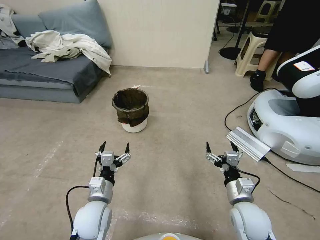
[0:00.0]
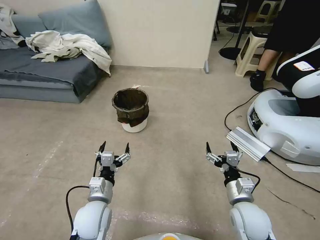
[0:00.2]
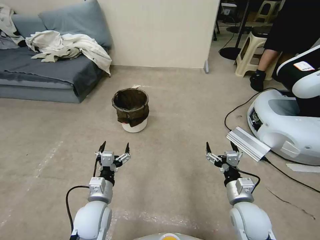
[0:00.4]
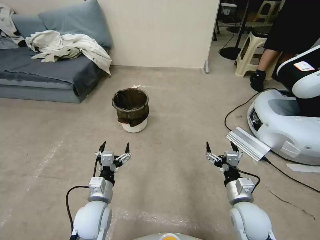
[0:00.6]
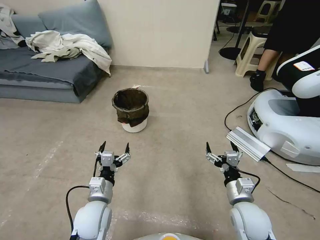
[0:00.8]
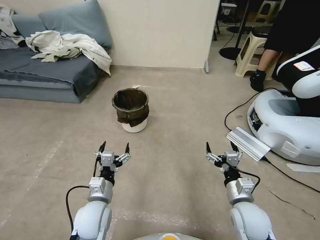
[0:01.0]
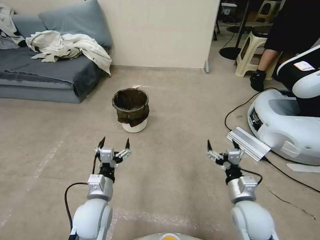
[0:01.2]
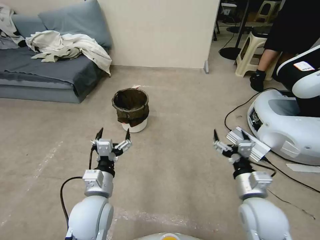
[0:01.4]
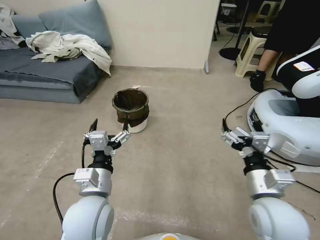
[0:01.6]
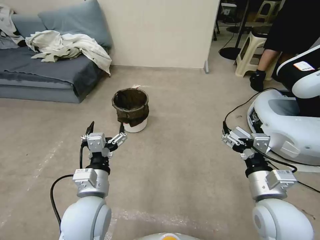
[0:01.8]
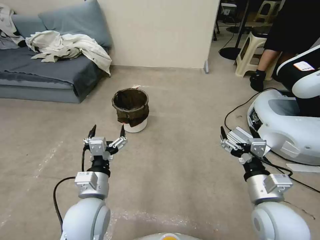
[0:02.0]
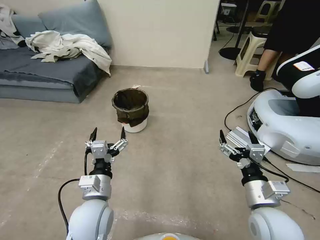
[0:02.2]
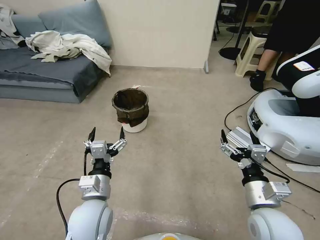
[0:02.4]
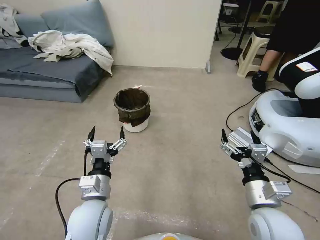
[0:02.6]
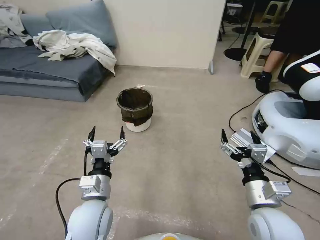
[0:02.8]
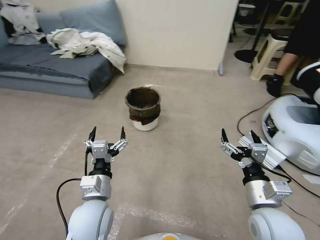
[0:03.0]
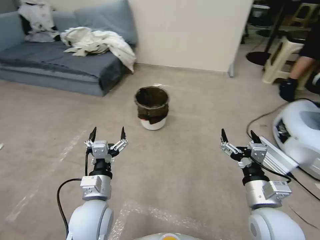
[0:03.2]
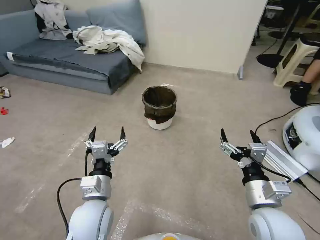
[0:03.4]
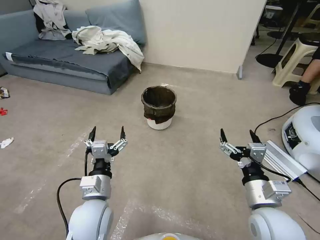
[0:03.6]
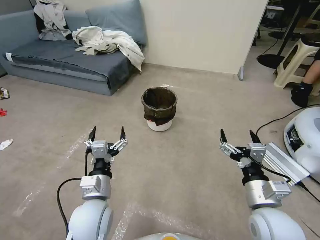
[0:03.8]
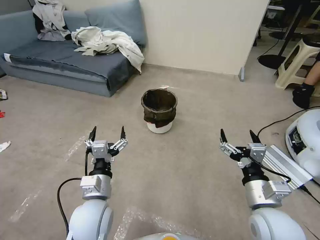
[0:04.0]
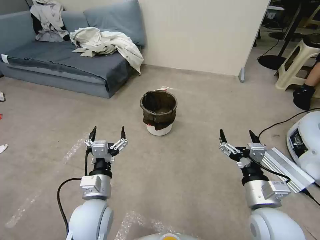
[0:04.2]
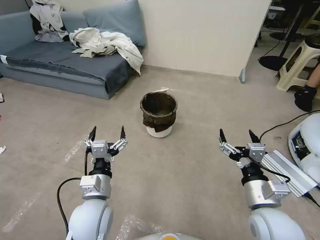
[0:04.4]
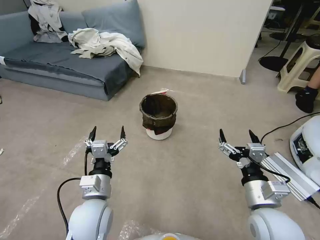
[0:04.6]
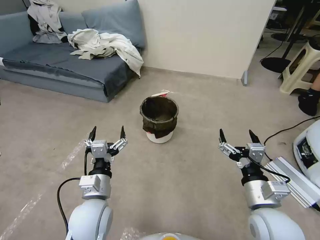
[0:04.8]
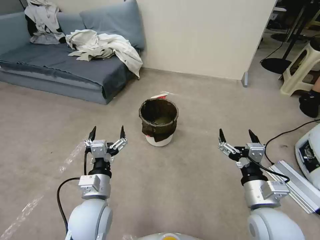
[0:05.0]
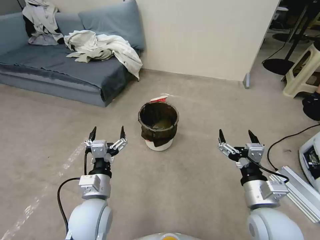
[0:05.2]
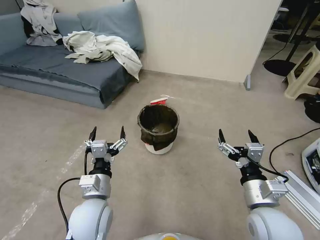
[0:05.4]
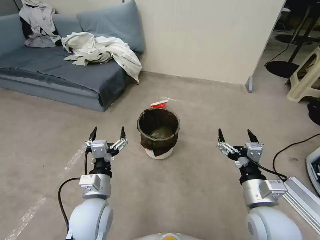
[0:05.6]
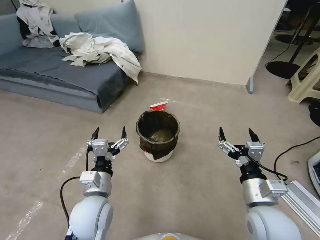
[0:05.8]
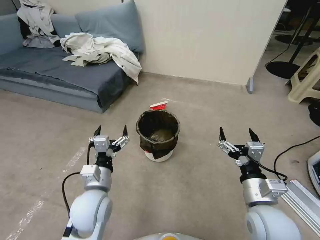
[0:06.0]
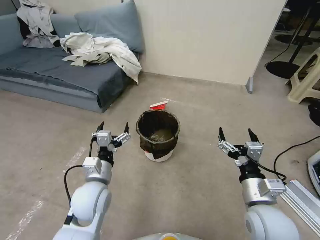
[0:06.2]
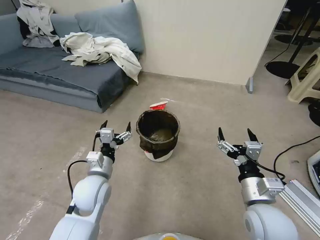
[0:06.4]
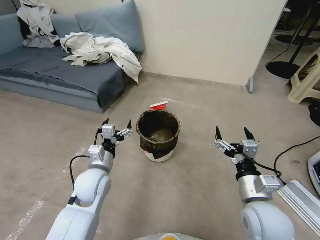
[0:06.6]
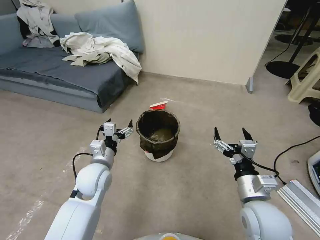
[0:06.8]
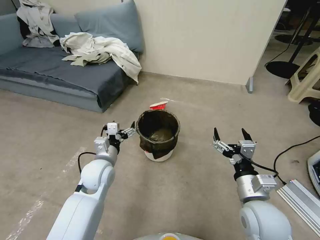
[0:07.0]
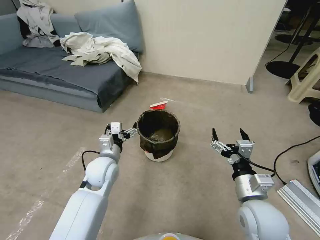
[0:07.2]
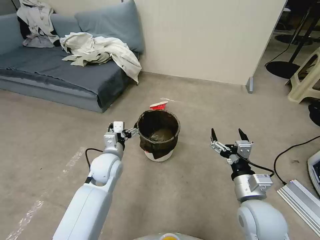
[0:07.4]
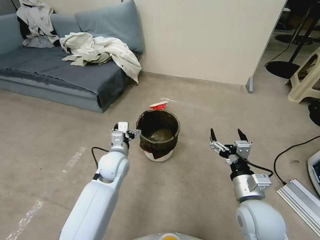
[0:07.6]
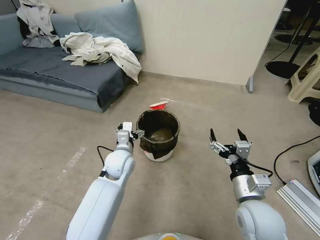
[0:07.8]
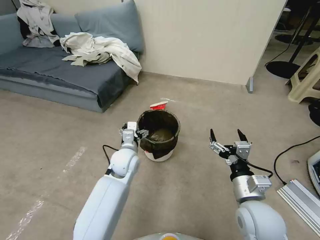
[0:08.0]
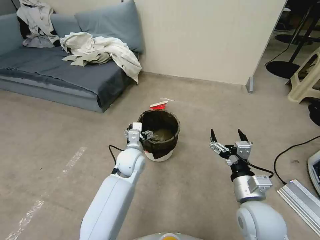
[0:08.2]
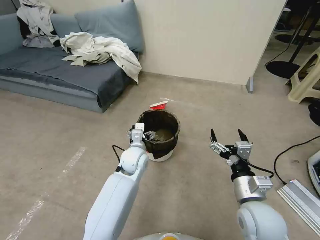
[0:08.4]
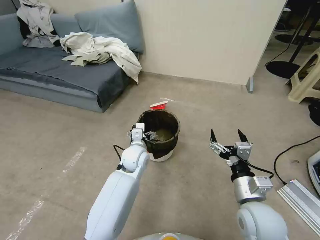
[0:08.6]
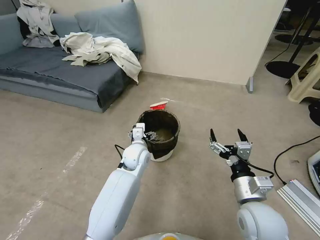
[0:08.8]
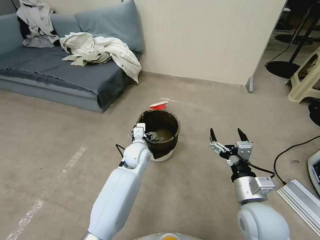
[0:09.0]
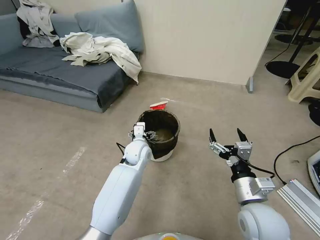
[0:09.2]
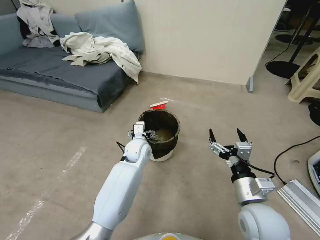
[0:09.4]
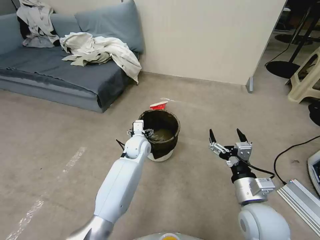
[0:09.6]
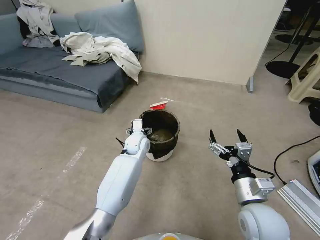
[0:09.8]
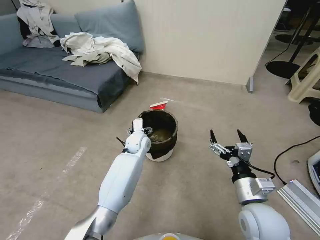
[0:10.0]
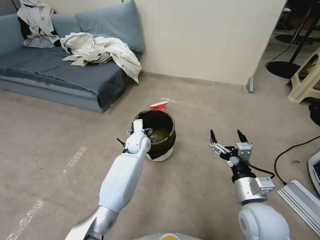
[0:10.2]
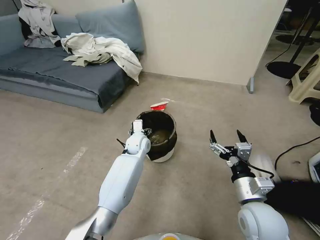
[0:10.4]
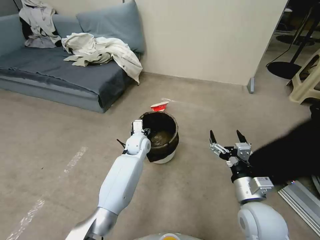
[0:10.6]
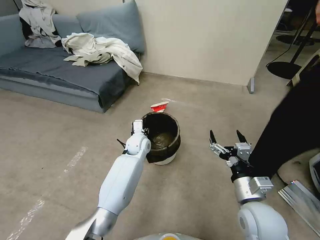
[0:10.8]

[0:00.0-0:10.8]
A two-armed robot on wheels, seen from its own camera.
Task of the whole recording: Pick up the trash can from the floor.
0:01.6 to 0:03.0: The left gripper heads downward, covering approximately 5 cm.
0:06.2 to 0:07.8: The left gripper heads forward, covering roughly 10 cm.
0:07.8 to 0:09.2: The left gripper goes approximately 10 cm to the right and forward.
0:09.2 to 0:10.8: The left gripper heads forward, covering roughly 5 cm, and closes.

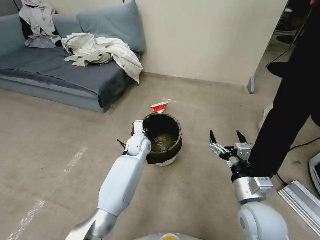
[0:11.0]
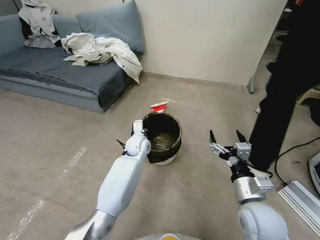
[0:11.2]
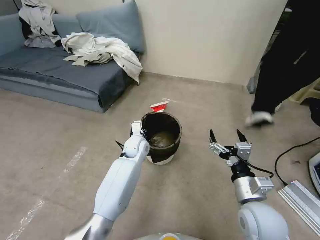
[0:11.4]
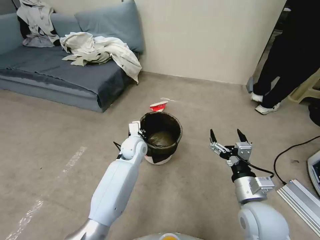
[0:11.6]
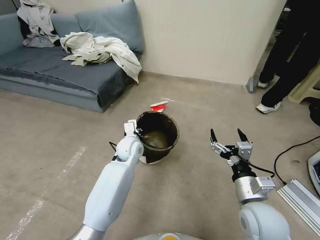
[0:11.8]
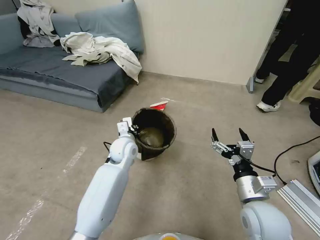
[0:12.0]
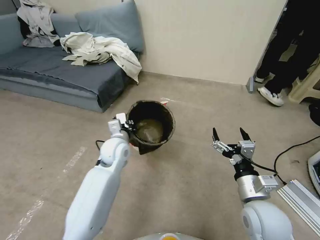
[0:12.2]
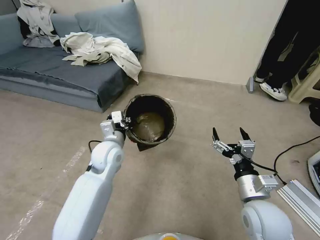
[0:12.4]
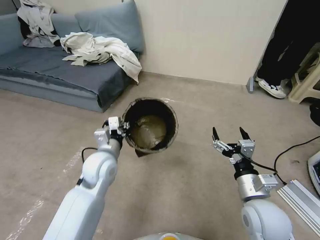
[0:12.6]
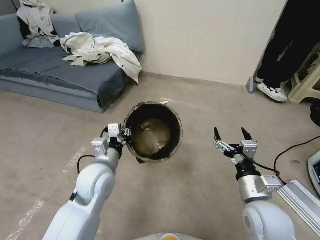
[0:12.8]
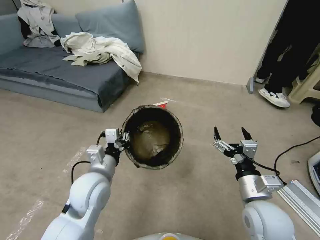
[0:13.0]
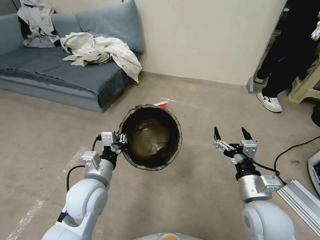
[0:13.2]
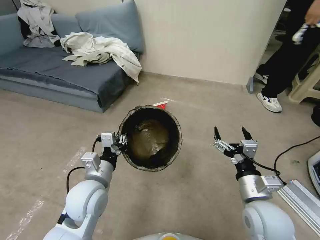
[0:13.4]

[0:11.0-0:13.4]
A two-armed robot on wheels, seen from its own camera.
Task of the whole recording: Pick up the trash can from the floor.
0:11.0 to 0:12.2: The left gripper is displaced upward, backward and to the left by some 10 cm.
0:12.2 to 0:13.4: The left gripper goes about 15 cm backward.

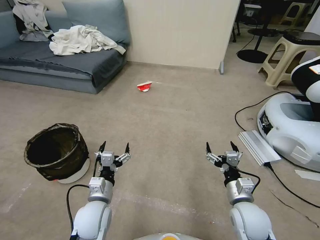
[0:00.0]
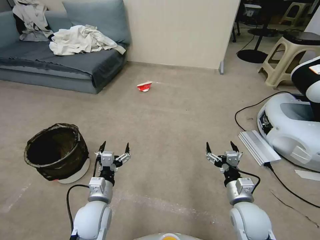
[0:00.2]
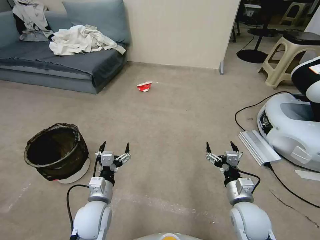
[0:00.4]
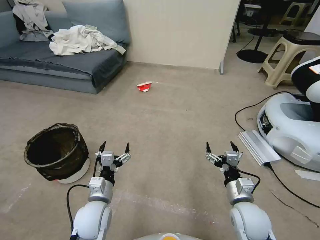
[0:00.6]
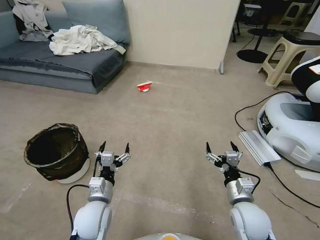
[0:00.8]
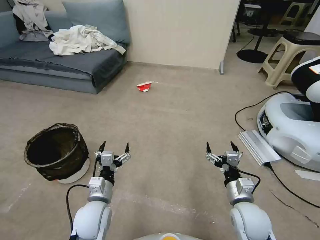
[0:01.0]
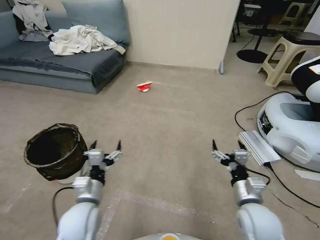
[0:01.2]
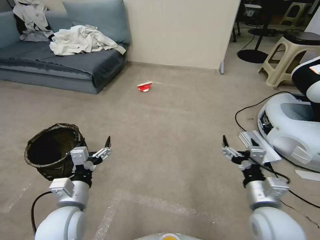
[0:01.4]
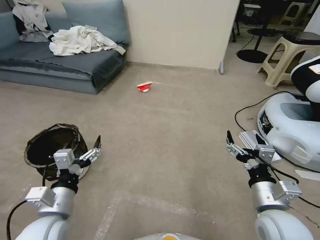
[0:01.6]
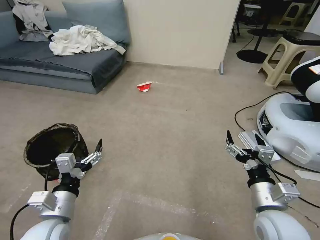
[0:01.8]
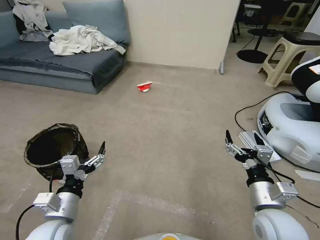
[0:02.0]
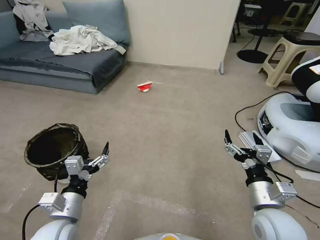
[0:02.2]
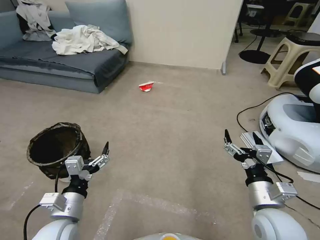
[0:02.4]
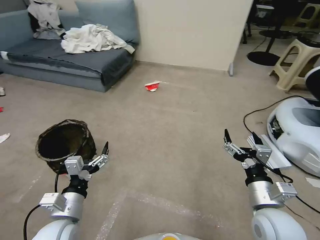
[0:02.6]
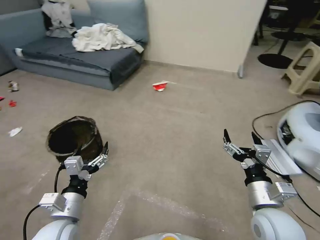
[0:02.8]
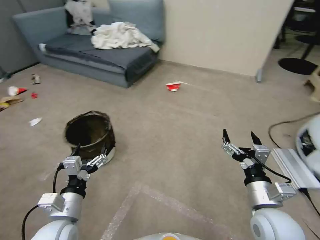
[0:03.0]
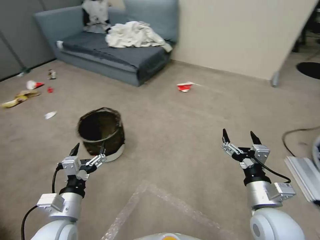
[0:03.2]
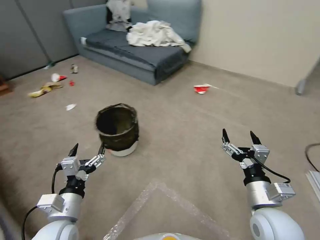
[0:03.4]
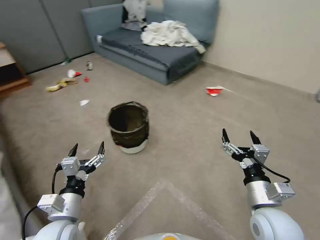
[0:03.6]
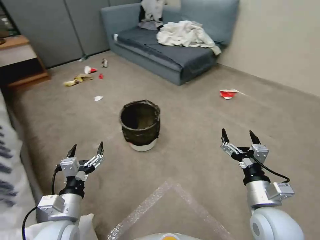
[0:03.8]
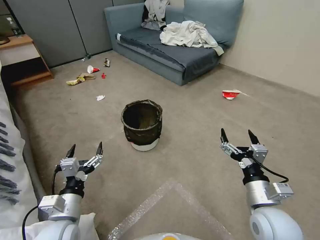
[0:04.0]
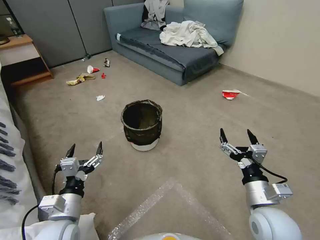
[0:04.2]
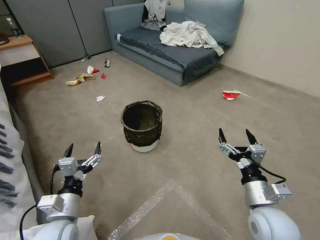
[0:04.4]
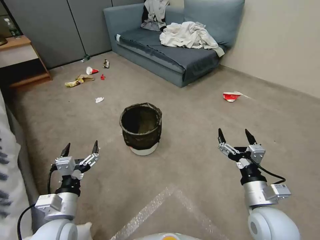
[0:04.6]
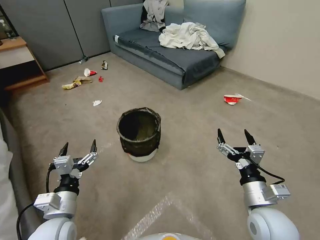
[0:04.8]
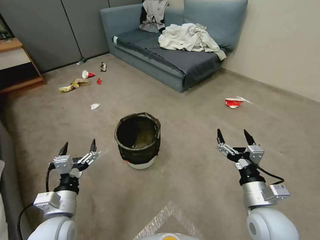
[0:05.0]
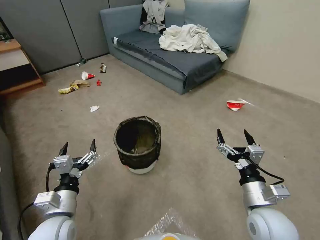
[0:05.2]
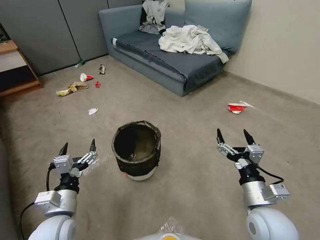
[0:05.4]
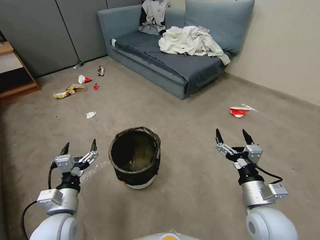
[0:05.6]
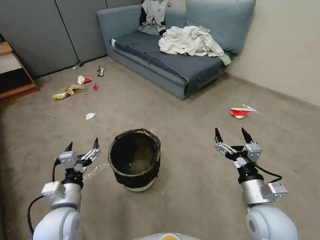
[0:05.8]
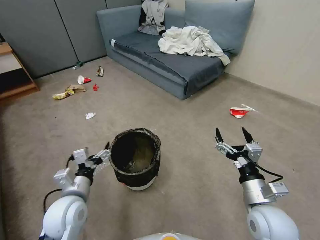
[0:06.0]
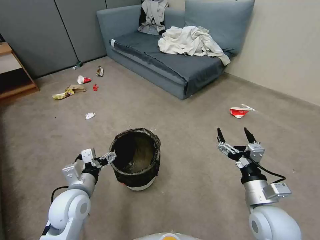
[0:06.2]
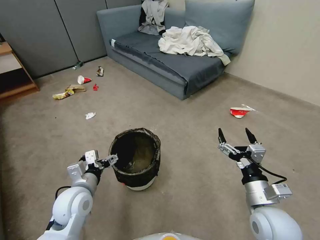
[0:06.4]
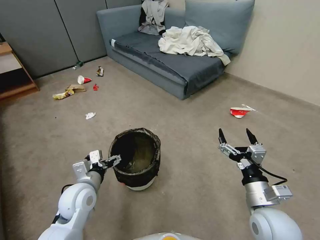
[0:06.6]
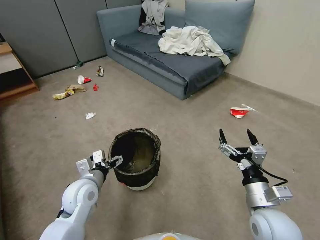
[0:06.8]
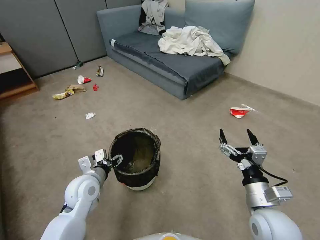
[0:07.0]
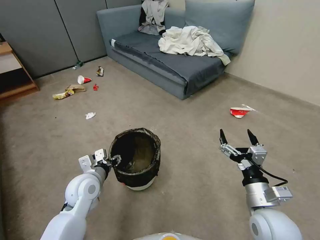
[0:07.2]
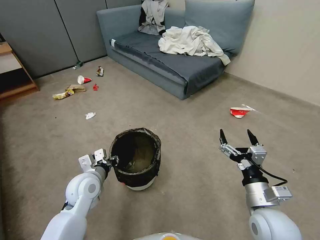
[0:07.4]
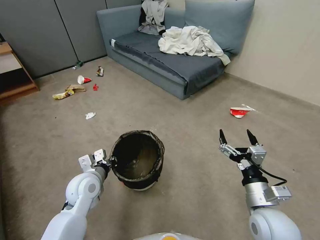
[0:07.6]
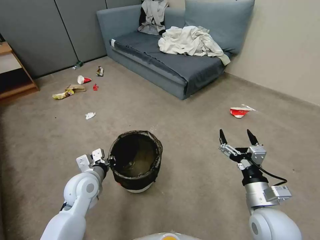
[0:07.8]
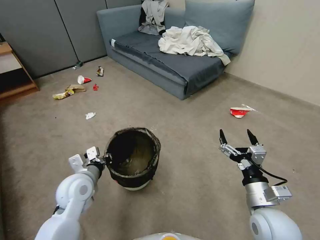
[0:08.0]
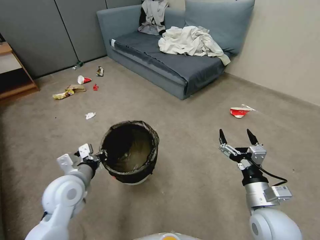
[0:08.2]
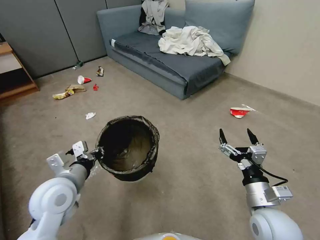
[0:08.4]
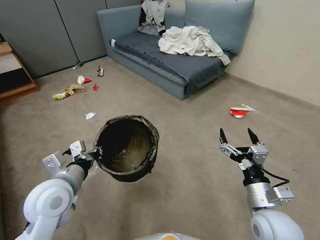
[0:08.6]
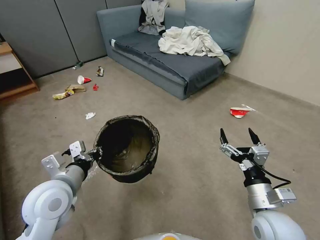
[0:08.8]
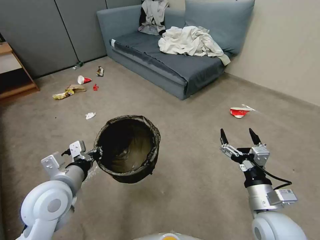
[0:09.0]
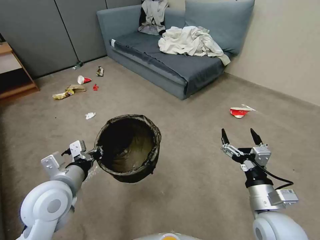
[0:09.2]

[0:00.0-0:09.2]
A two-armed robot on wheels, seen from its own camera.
Task of the whole recording: Pick up the trash can from the floor.
0:04.6 to 0:06.2: The left gripper goes approximately 5 cm forward.
0:06.2 to 0:07.6: The left gripper moves forward, some 5 cm, and closes its fingers.
0:07.6 to 0:09.2: The left gripper goes approximately 15 cm upward and backward.
